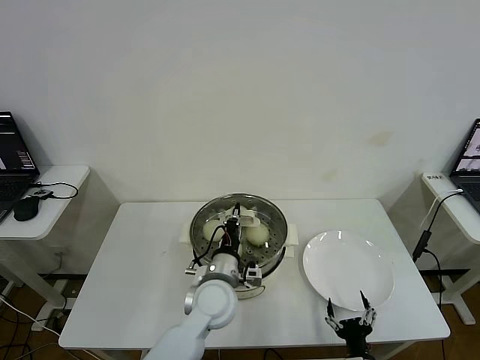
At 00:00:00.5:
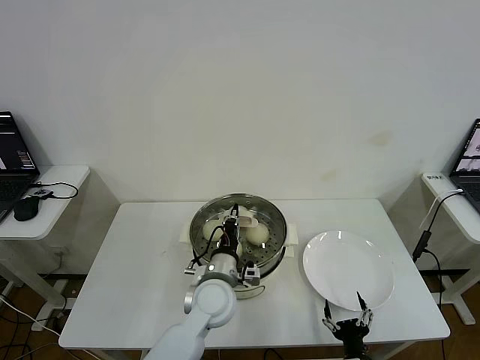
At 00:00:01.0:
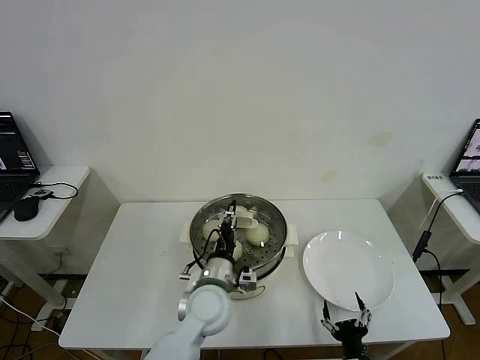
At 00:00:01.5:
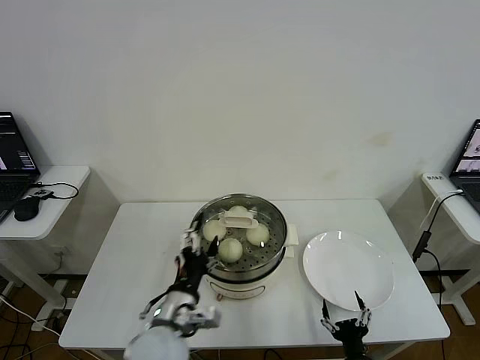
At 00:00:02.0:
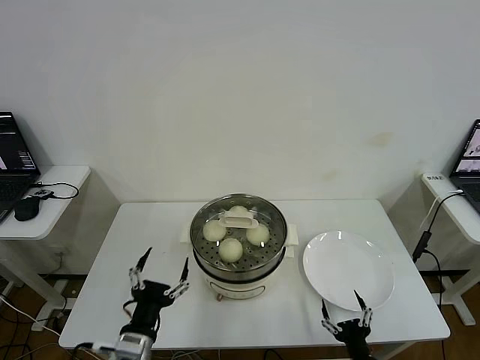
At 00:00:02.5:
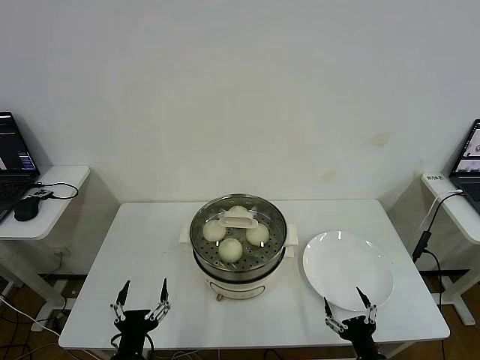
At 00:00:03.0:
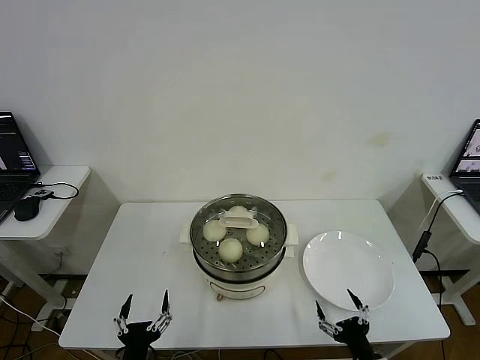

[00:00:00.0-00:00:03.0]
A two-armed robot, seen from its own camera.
00:00:00.0 to 00:00:01.5: The left gripper goes some 10 cm backward and to the left, and opens up.
00:00:01.5 to 00:00:03.0: The right gripper shifts by some 5 cm. The left gripper travels backward, downward and to the left by about 20 cm.

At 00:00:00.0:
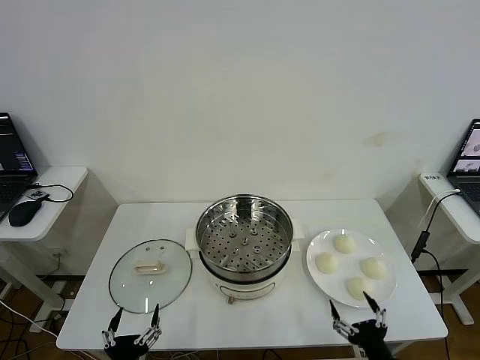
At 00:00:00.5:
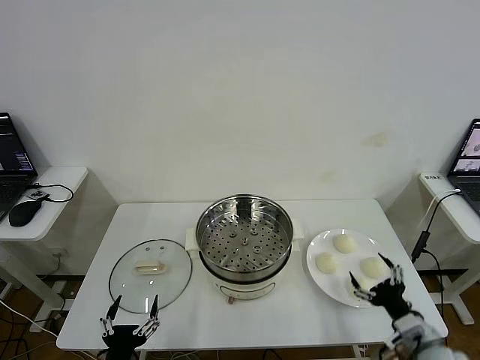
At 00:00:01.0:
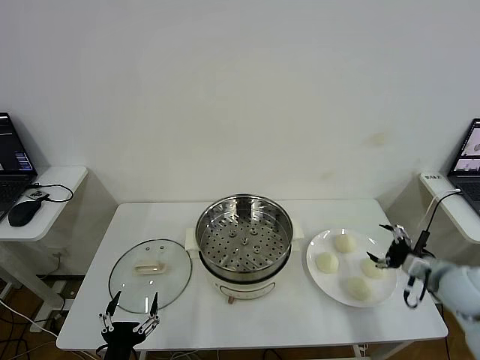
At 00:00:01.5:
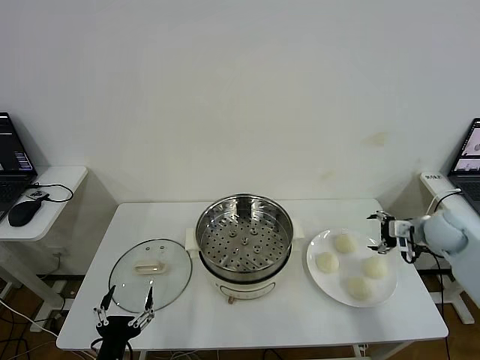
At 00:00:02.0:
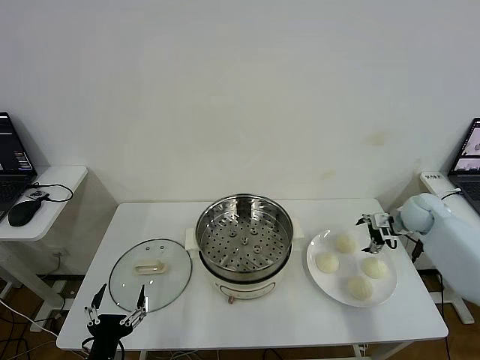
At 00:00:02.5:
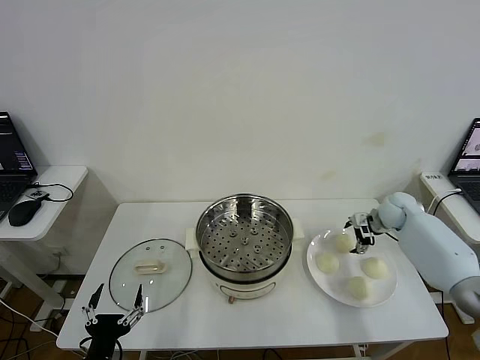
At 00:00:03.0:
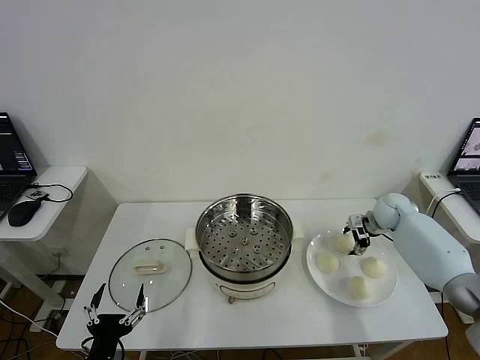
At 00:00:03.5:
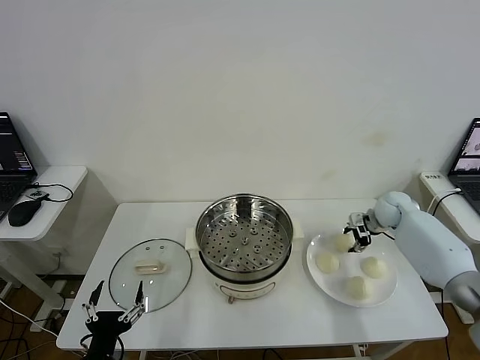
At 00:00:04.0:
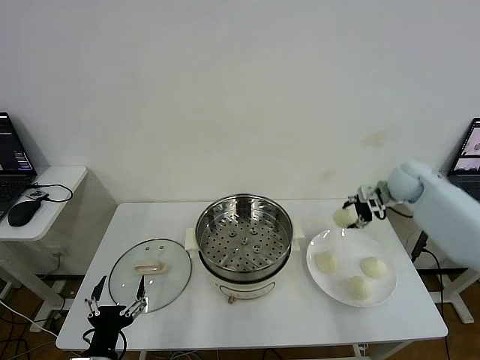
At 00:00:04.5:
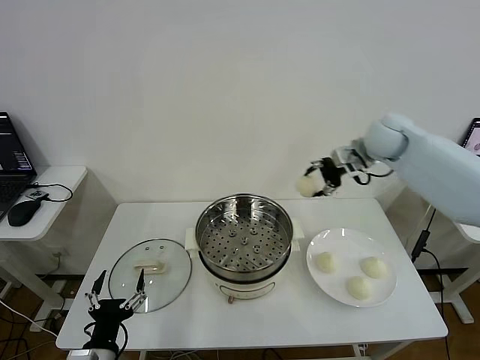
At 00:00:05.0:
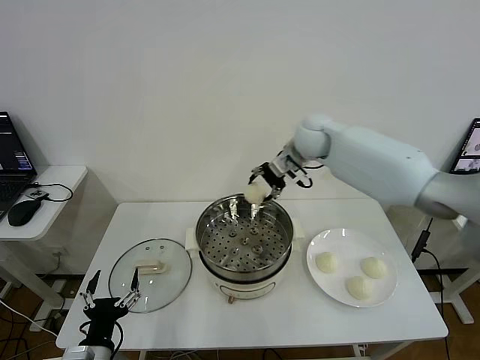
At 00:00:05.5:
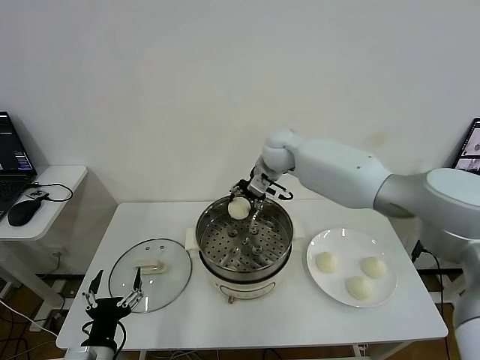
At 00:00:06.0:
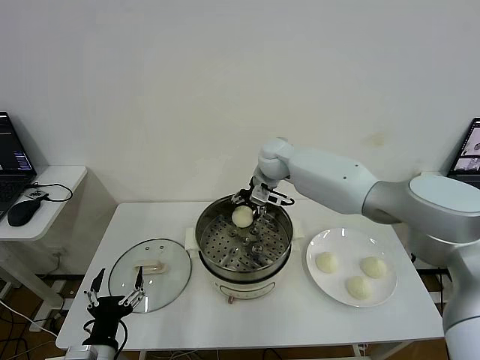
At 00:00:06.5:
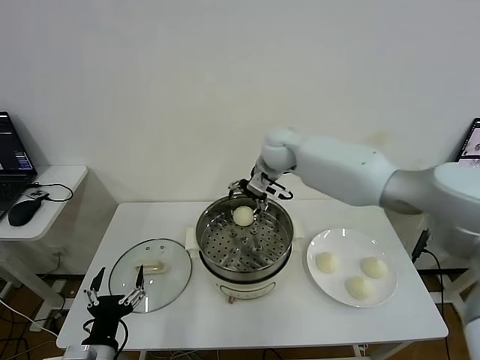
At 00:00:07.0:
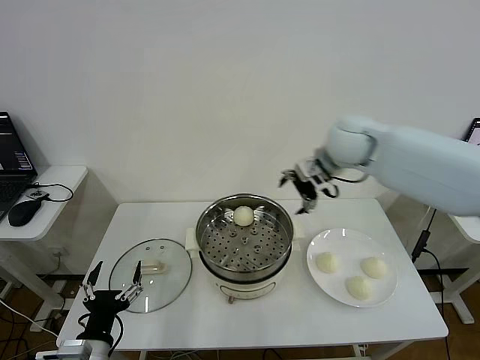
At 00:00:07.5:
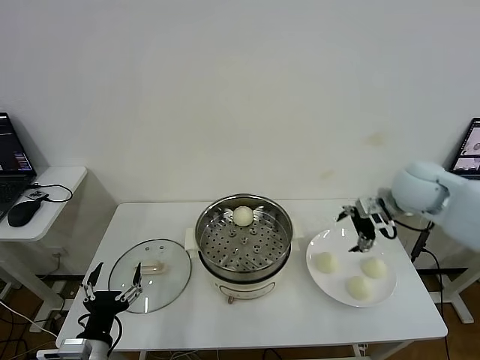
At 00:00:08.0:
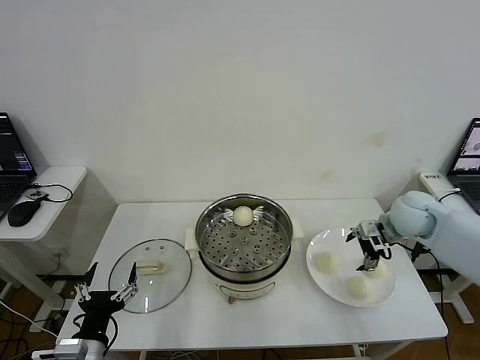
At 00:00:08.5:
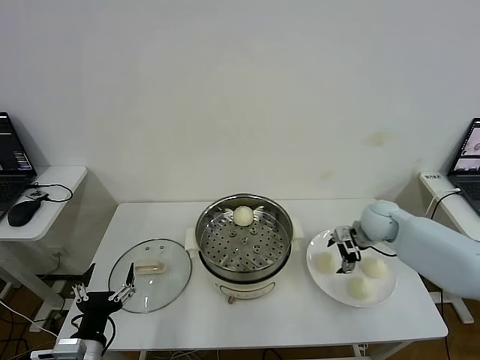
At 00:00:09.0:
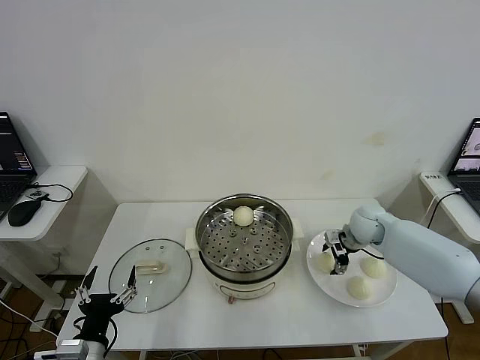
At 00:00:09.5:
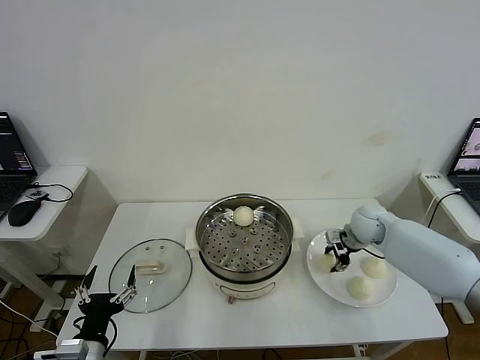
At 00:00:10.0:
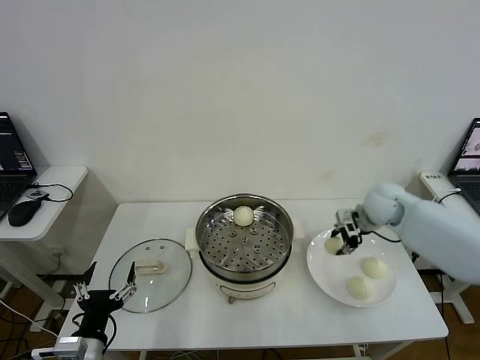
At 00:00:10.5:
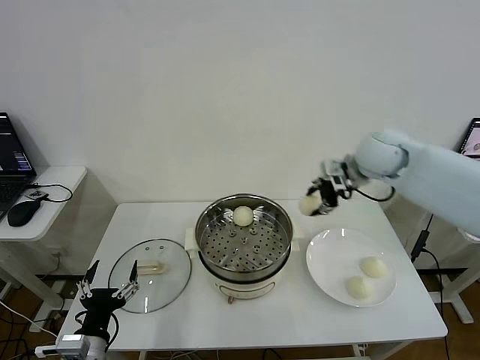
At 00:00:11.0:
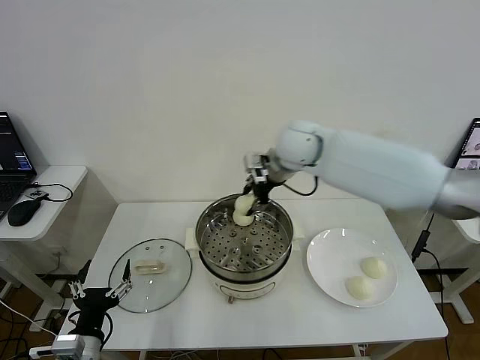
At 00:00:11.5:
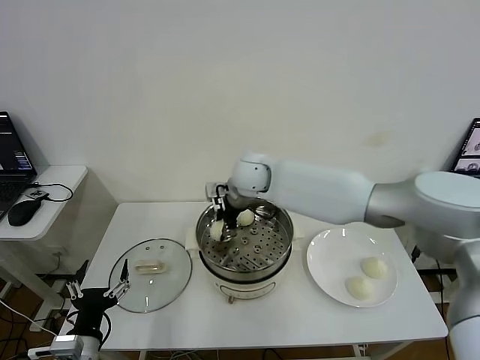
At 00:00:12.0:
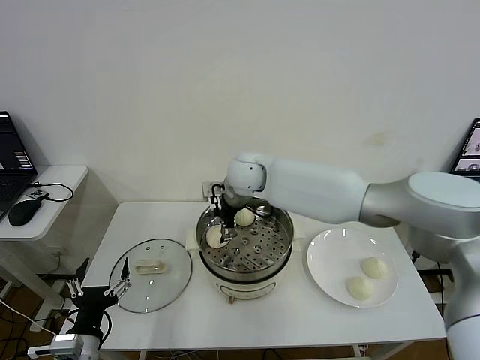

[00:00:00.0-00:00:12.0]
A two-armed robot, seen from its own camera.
Step, 00:00:00.0 to 00:00:03.0: Grasp the baozi in the plate with right gripper.
Step, 00:00:03.5 to 00:00:06.0: Place the baozi on the steamer with right gripper.
Step, 00:00:06.5 to 00:00:09.5: Grasp the baozi in the plate with right gripper.
Step, 00:00:10.0 to 00:00:11.5: Place the baozi on the steamer with right gripper.
00:00:02.0 to 00:00:04.0: The right gripper moves upward and to the left, about 15 cm, and closes up.
00:00:04.0 to 00:00:06.0: The right gripper shifts roughly 30 cm to the left, and opens.
00:00:06.0 to 00:00:08.0: The right gripper heads to the right and backward, covering about 30 cm.
00:00:08.0 to 00:00:10.0: The right gripper reaches about 5 cm downward, then returns, and closes its fingers.
00:00:10.0 to 00:00:12.0: The right gripper heads to the left, covering about 30 cm, and opens up.

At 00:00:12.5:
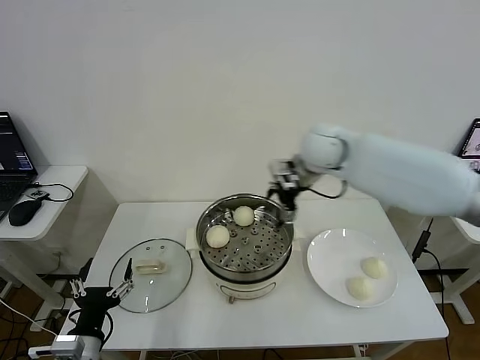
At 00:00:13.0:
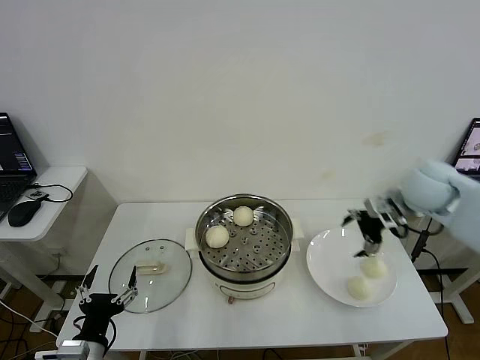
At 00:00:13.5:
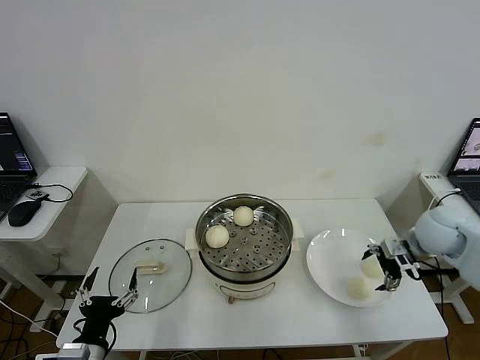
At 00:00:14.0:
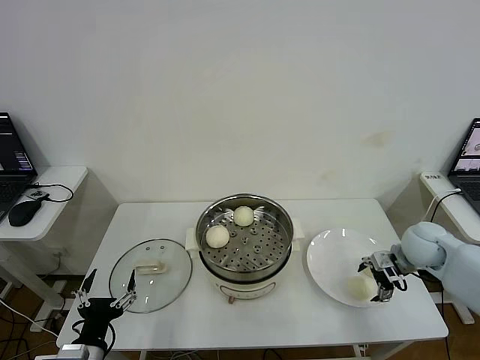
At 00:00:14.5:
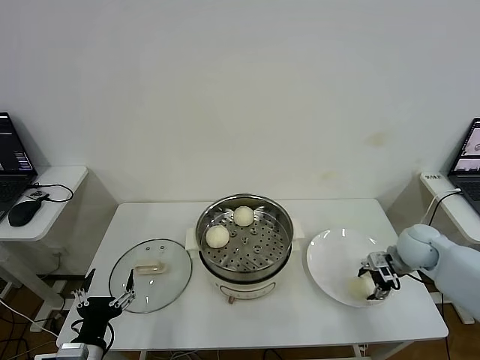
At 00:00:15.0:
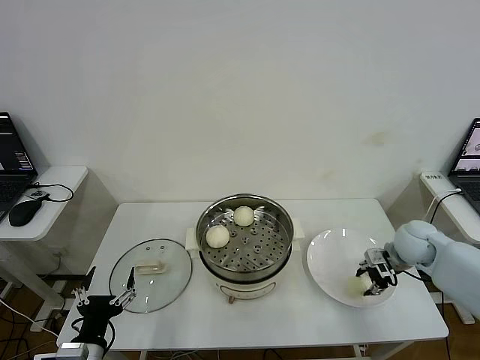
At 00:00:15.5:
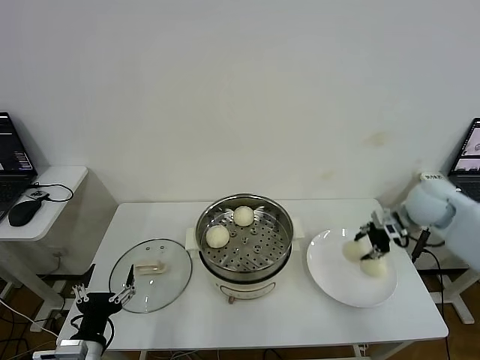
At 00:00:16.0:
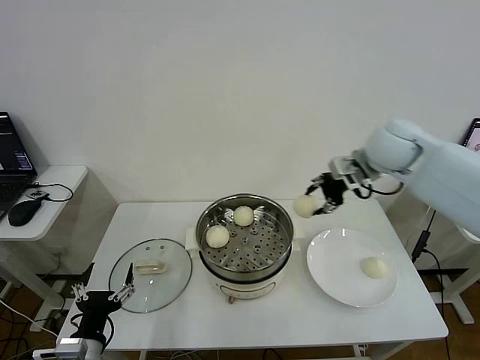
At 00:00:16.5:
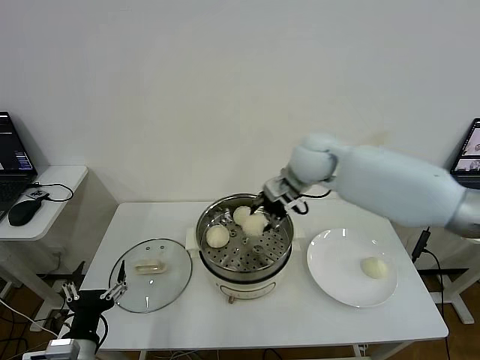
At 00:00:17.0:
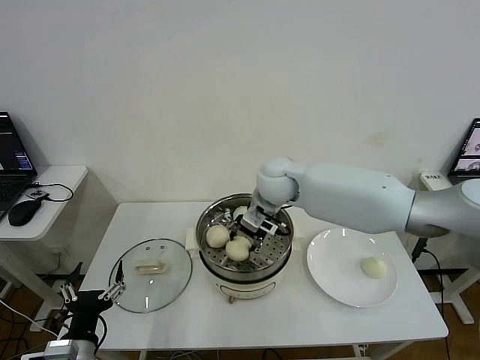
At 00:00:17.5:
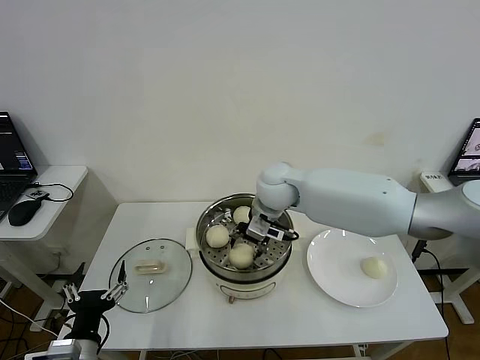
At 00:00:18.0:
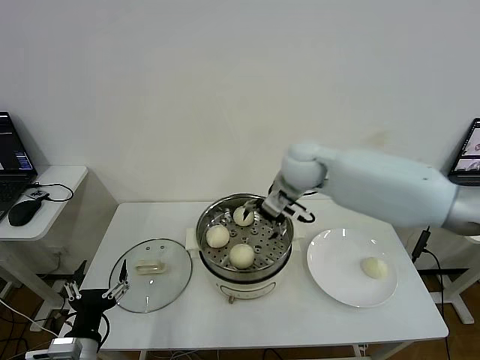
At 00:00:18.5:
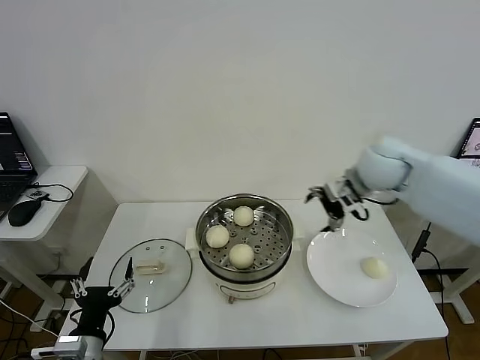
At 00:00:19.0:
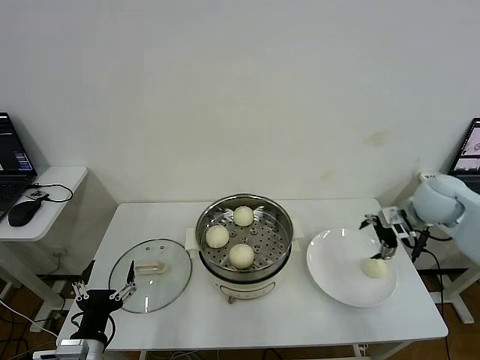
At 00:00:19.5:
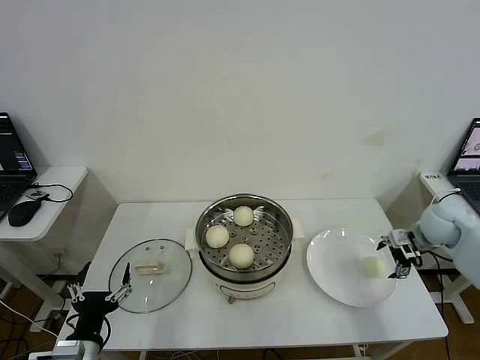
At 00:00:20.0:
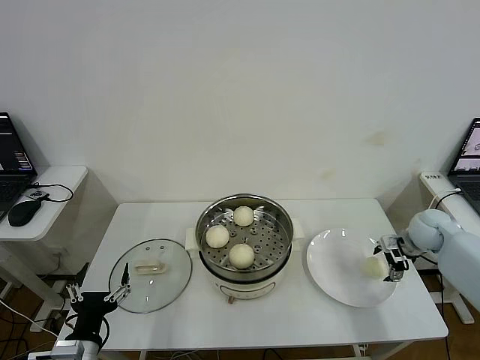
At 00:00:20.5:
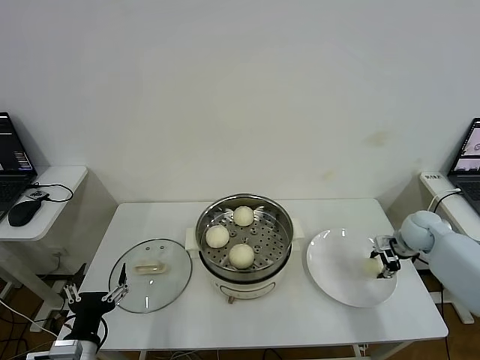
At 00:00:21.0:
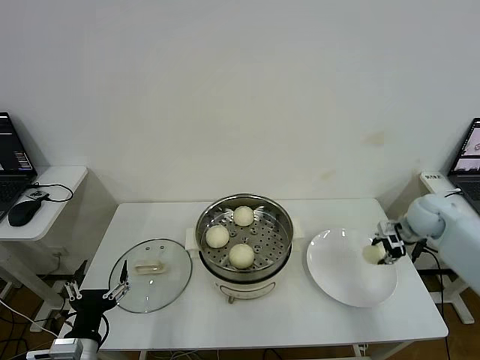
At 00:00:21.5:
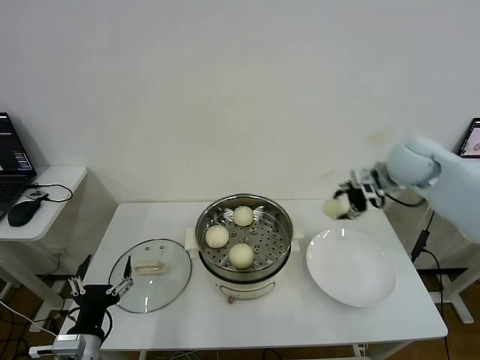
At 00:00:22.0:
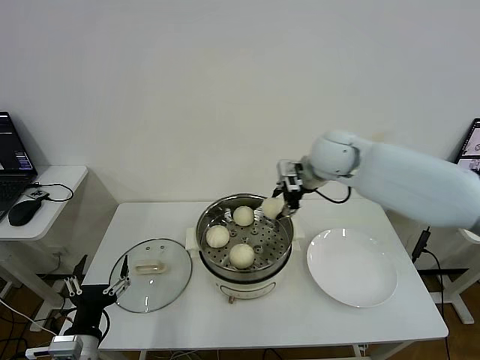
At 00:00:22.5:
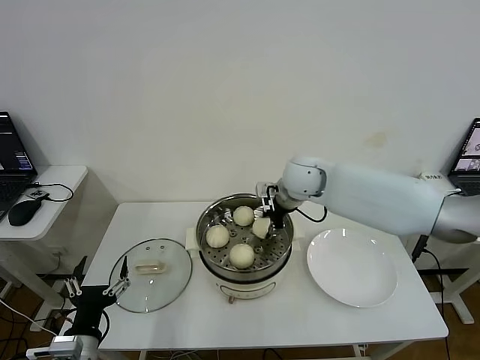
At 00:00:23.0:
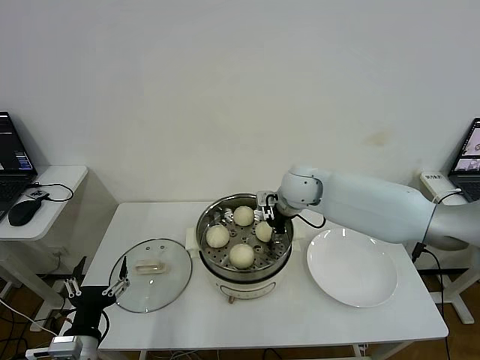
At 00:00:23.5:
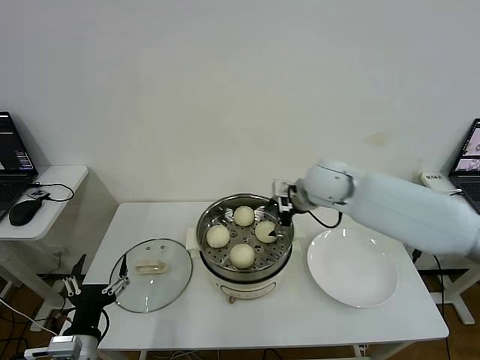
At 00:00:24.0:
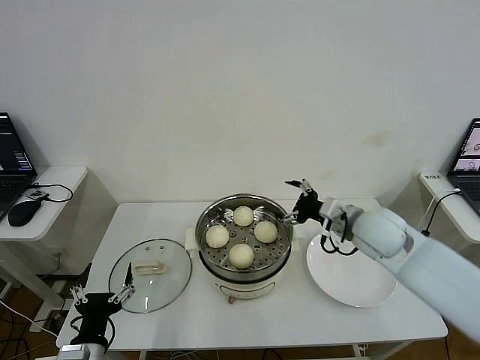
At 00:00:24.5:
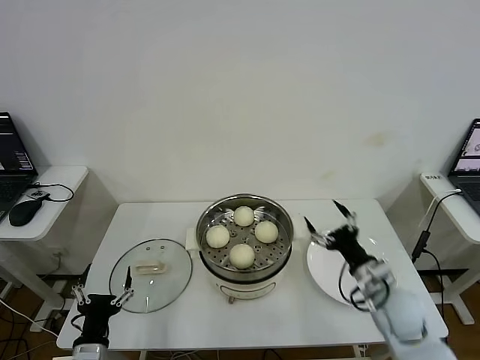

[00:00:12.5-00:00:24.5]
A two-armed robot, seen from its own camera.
Step, 00:00:12.5 to 00:00:14.5: Grasp the baozi in the plate with right gripper.
Step, 00:00:15.0 to 00:00:17.5: Place the baozi on the steamer with right gripper.
Step, 00:00:18.0 to 00:00:20.5: Grasp the baozi in the plate with right gripper.
Step, 00:00:21.0 to 00:00:23.0: Place the baozi on the steamer with right gripper.
00:00:12.5 to 00:00:14.5: The right gripper moves downward, to the right and backward, approximately 30 cm, and closes.
00:00:14.5 to 00:00:16.5: The right gripper travels to the left and upward by approximately 35 cm.
00:00:16.5 to 00:00:18.5: The right gripper goes some 15 cm to the right, and opens up.
00:00:18.5 to 00:00:20.5: The right gripper heads downward and to the right, covering some 25 cm, and closes.
00:00:20.5 to 00:00:22.5: The right gripper is displaced to the left and upward by some 35 cm.
00:00:22.5 to 00:00:24.5: The right gripper goes about 35 cm backward, to the right and downward, and opens up.
